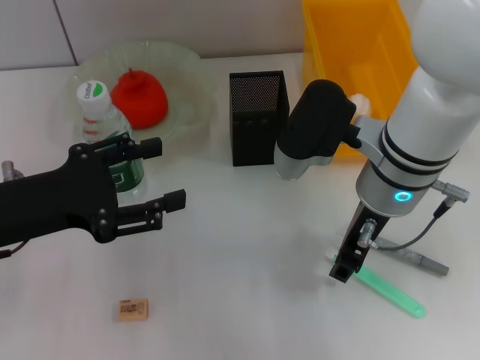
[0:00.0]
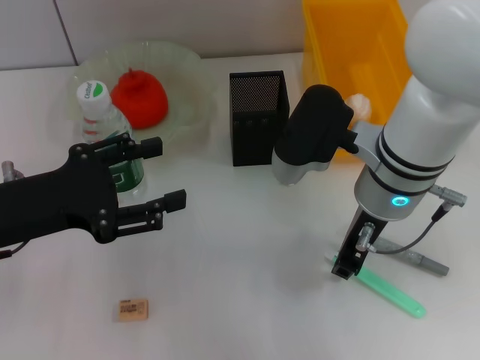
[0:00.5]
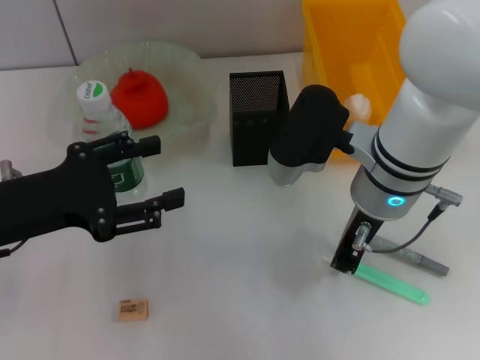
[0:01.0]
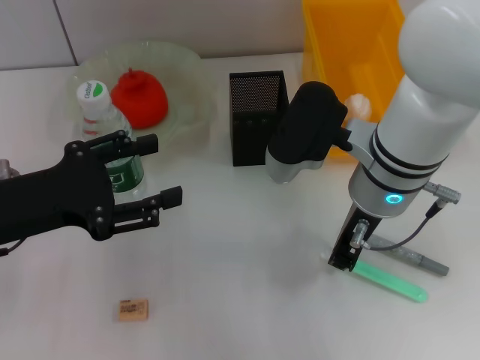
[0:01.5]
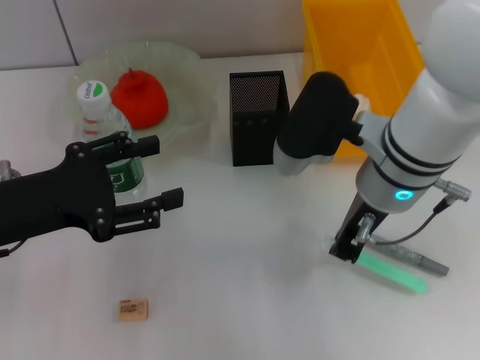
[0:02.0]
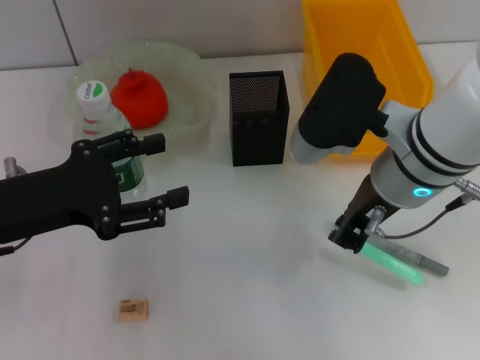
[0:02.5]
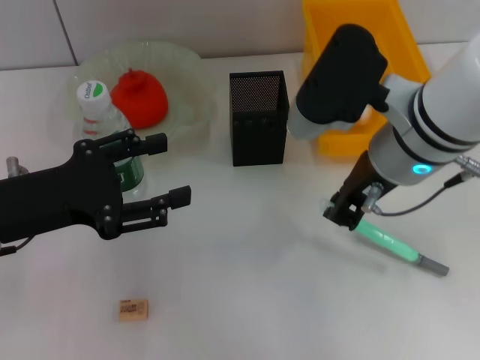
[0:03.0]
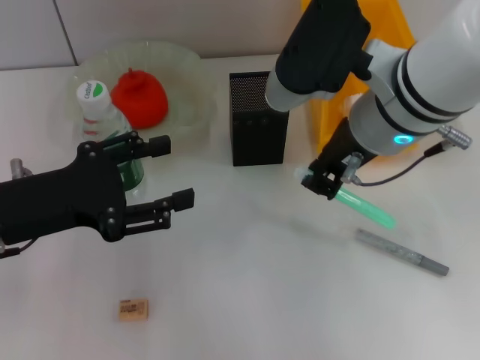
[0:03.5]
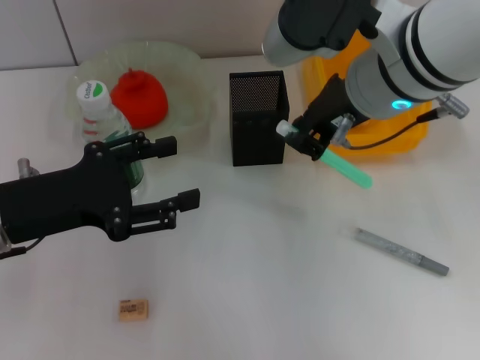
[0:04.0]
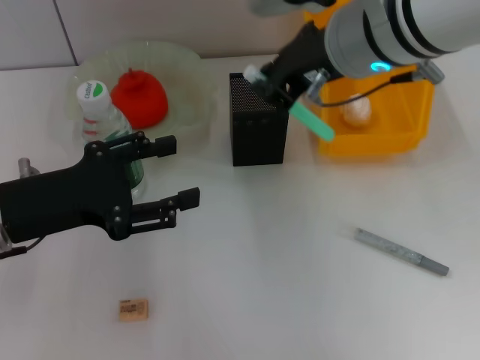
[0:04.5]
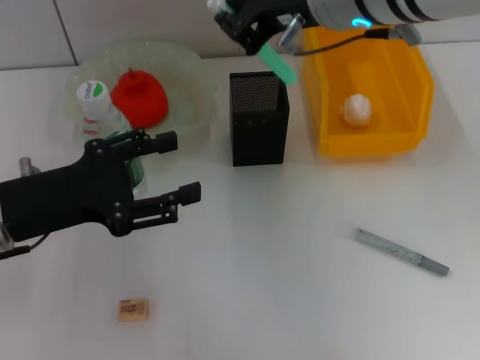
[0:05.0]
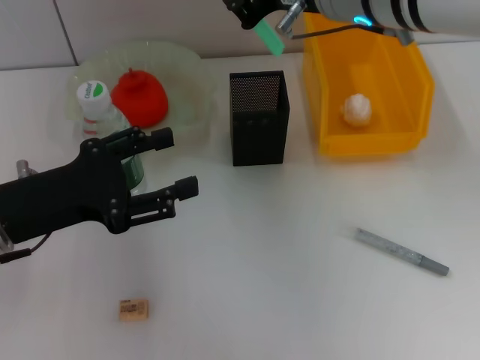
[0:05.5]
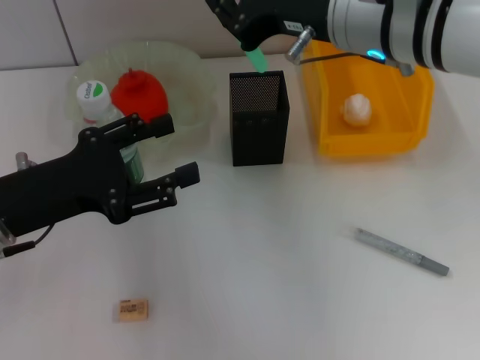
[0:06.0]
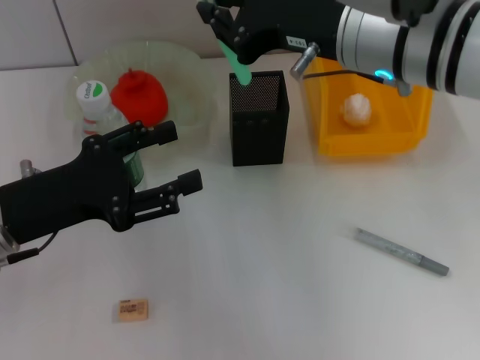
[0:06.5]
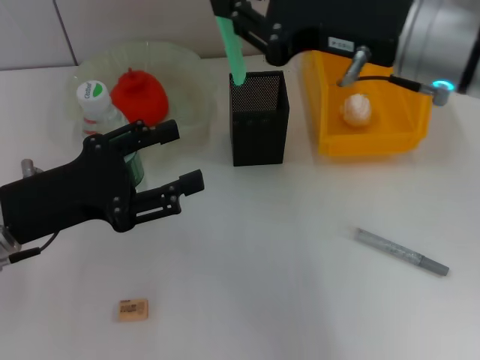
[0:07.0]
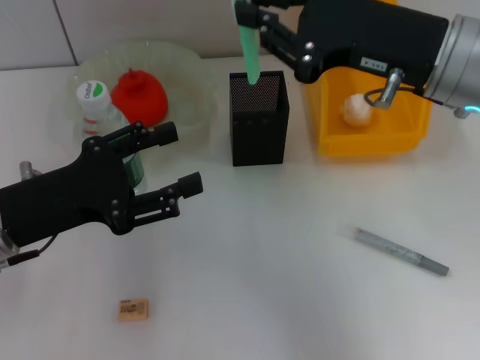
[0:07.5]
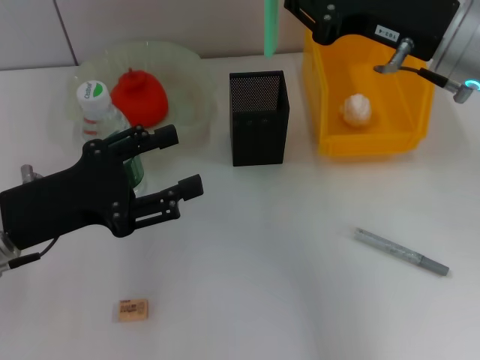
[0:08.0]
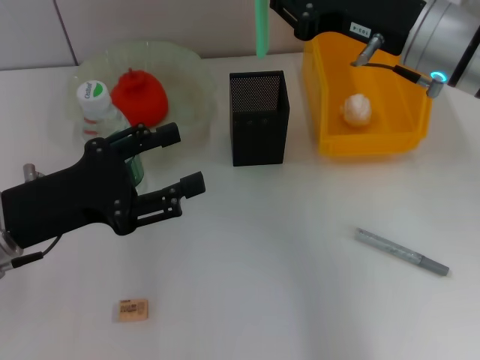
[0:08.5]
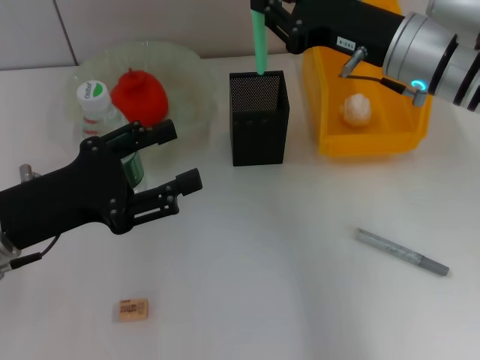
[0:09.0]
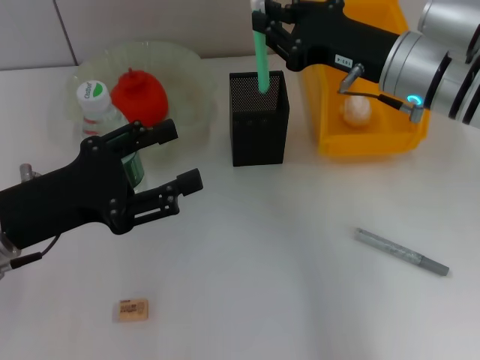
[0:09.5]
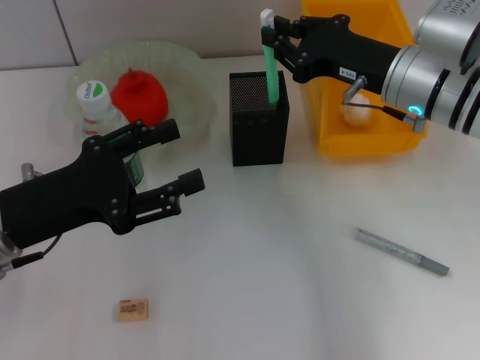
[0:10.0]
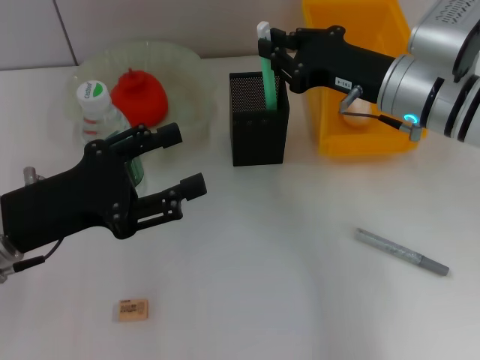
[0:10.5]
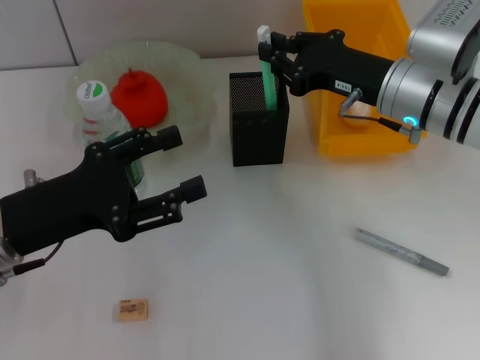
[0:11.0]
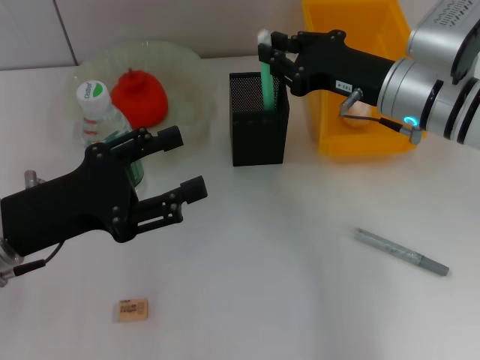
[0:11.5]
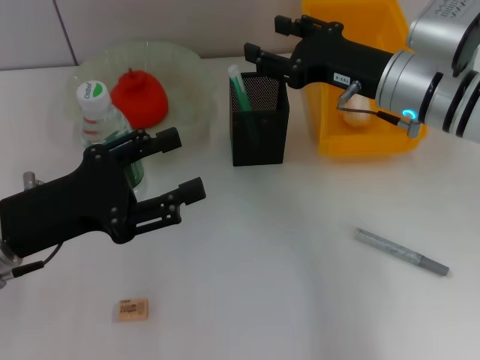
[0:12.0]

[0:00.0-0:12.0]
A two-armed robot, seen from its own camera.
Step, 0:01.5 to 0:11.5: Place the blue utility knife into the pen holder with the right hand.
0:00.0 to 0:02.0: The right gripper closes.
0:02.0 to 0:04.0: The right gripper is displaced upward by roughly 10 cm.
0:06.0 to 0:08.0: The right gripper heads to the right, covering approximately 10 cm.
0:08.0 to 0:10.0: The right gripper shifts roughly 5 cm downward.
0:10.0 to 0:12.0: The right gripper opens up.

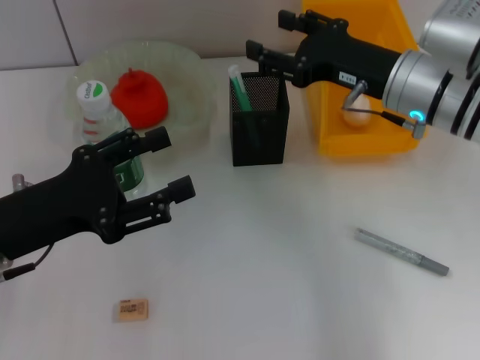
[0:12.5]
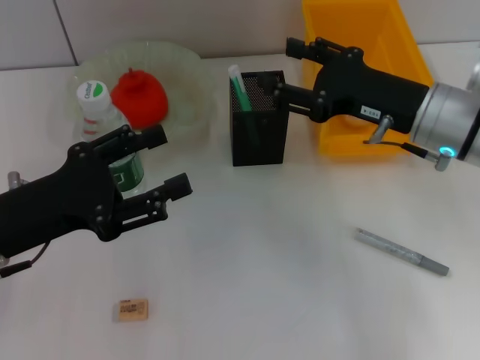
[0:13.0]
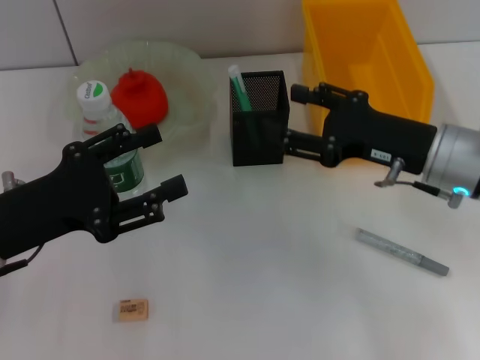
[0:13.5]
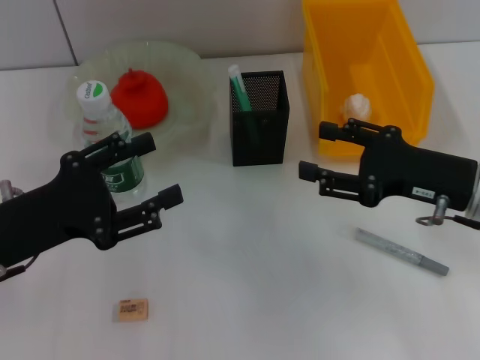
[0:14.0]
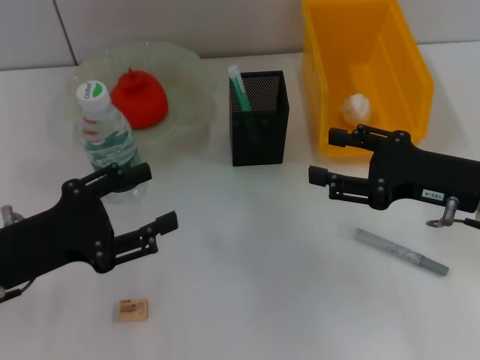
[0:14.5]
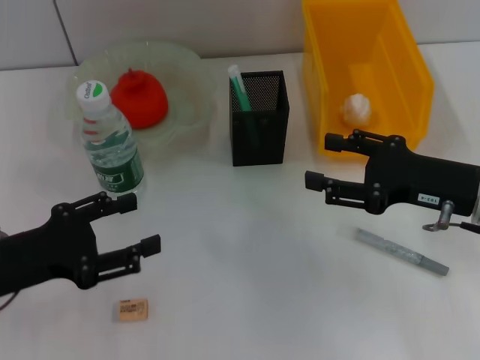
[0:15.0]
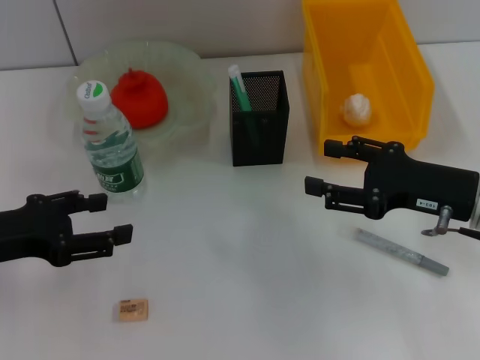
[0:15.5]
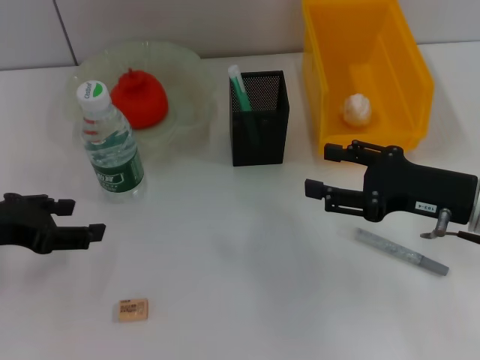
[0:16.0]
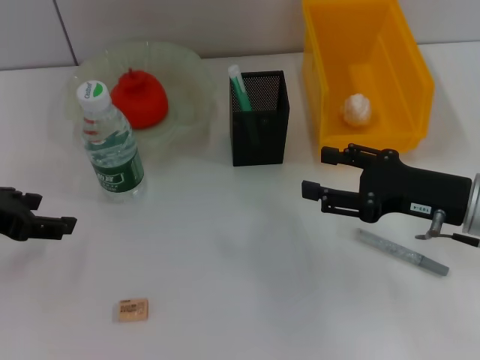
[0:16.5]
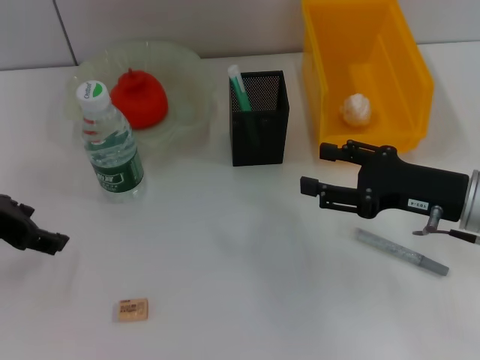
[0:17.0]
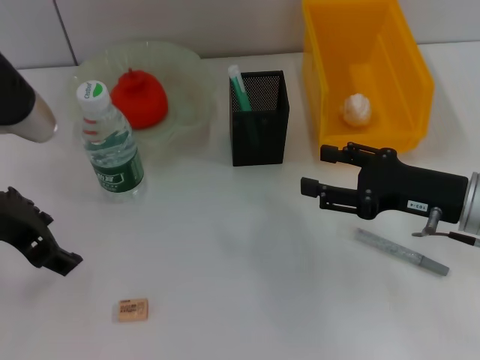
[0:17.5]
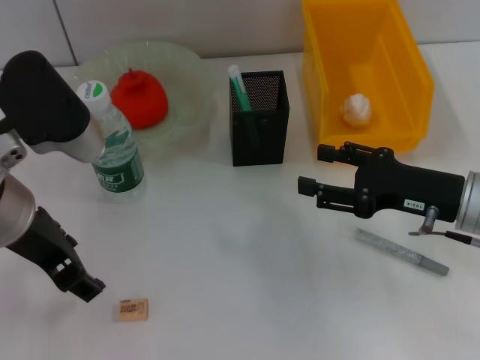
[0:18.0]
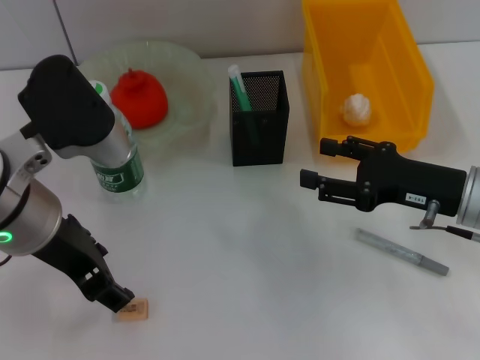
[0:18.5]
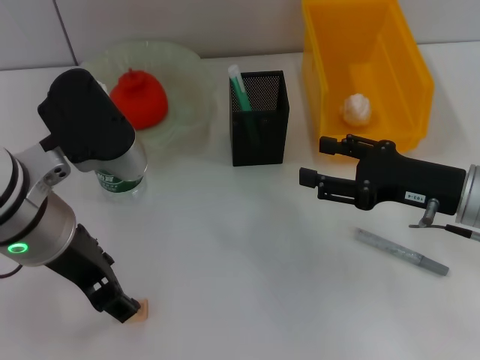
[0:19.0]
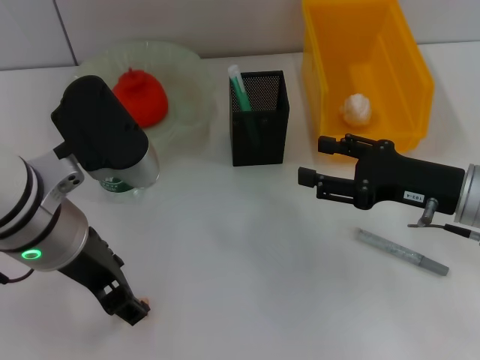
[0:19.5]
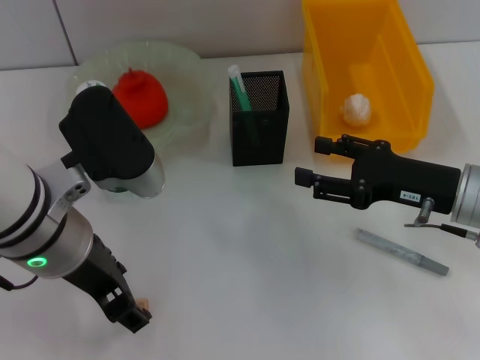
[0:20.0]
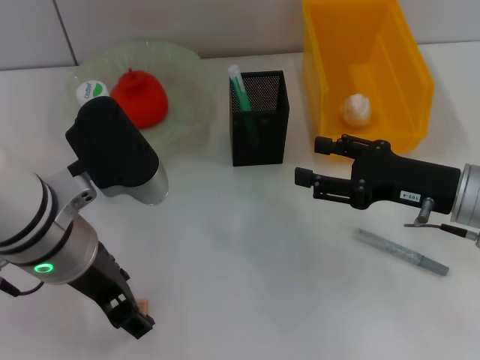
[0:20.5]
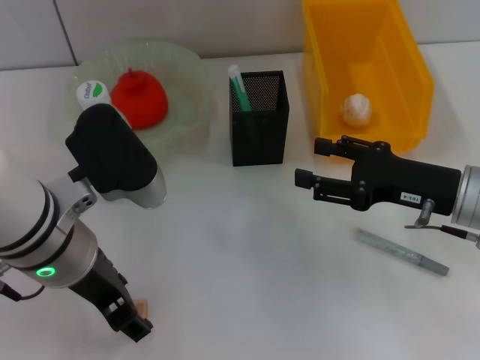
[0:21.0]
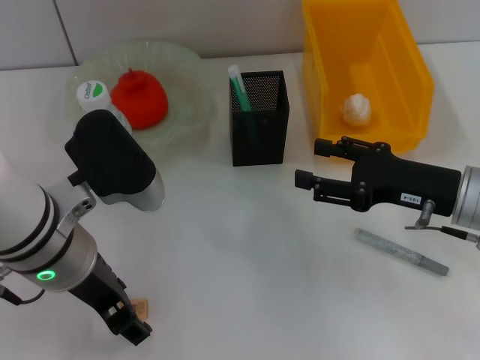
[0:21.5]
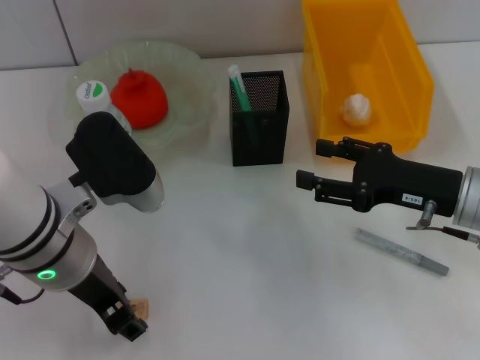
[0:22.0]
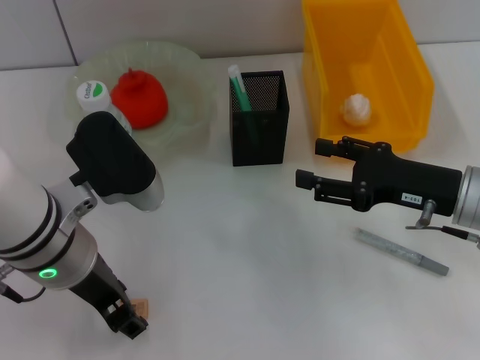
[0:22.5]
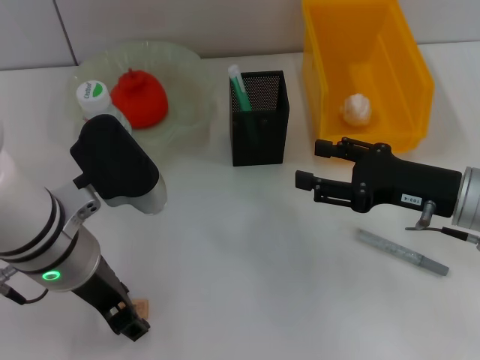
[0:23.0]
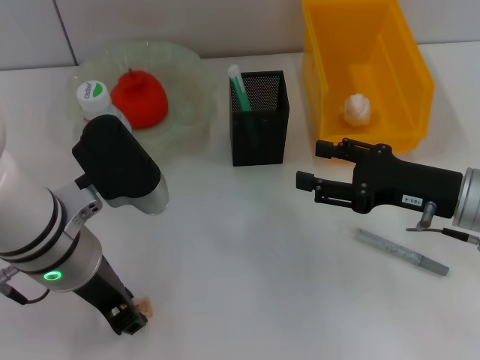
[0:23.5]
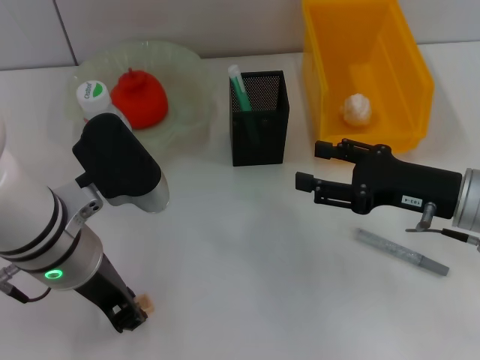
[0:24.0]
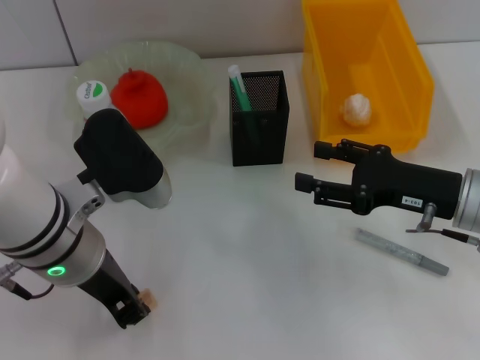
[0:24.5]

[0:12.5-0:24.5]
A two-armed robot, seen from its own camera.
Step, 0:12.5 to 0:24.0: Grab the eraser with the left hand.
0:12.5 to 0:14.5: The right gripper moves backward and to the right, roughly 10 cm.
0:14.5 to 0:16.5: The left gripper heads upward and forward, covering approximately 10 cm.
0:16.5 to 0:18.5: The left gripper goes approximately 15 cm to the right.
0:18.5 to 0:22.5: The grippers stay close to where they were, moving slightly.
0:22.5 to 0:24.5: The left gripper closes its fingers.

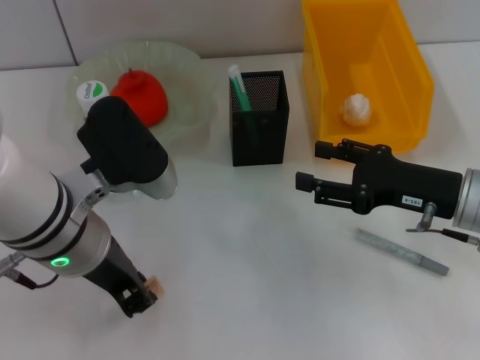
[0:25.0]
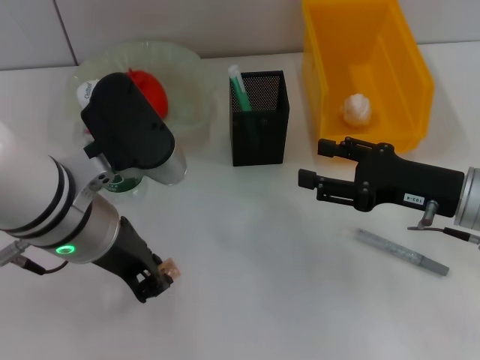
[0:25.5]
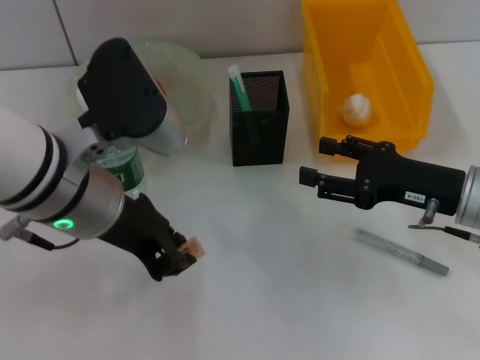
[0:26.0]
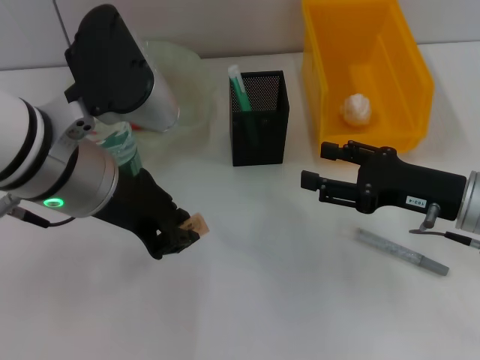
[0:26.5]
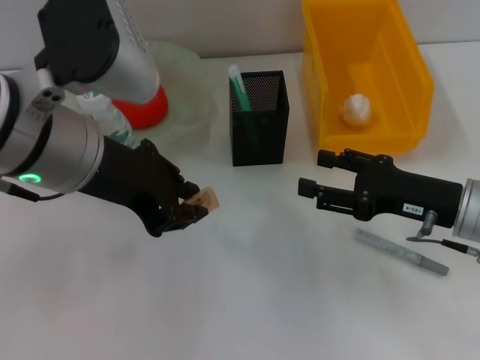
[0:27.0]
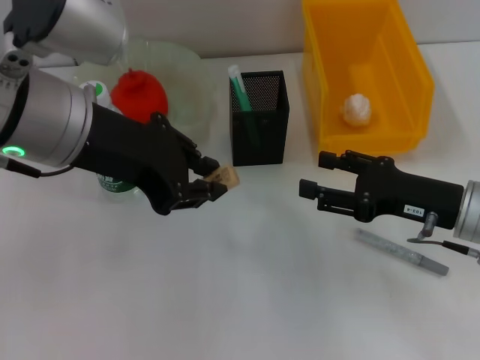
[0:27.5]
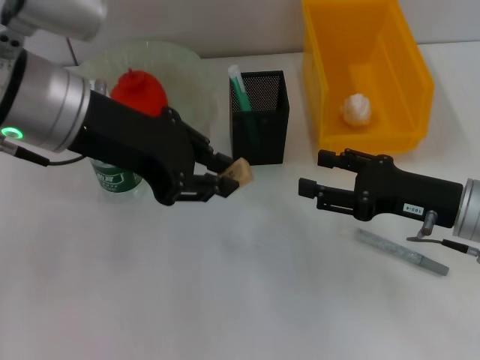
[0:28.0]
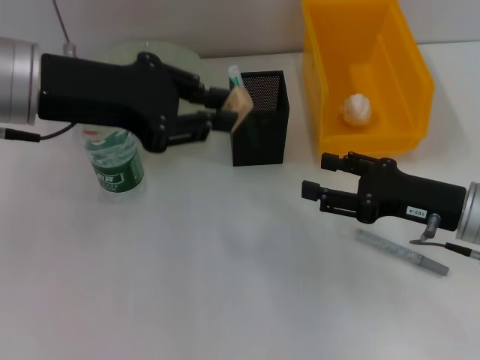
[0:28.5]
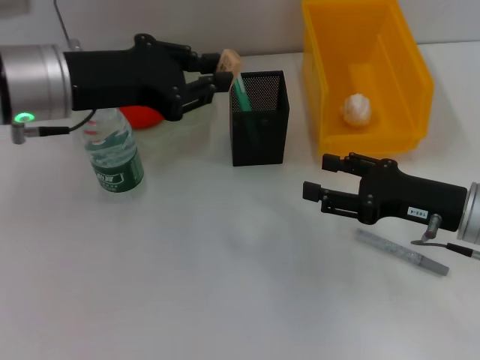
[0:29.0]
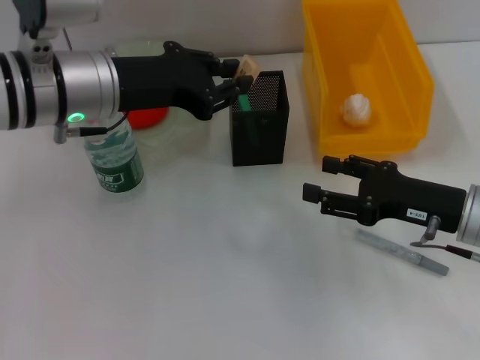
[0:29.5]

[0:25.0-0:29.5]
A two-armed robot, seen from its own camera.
0:25.0 to 0:27.0: The left gripper heads upward, covering roughly 10 cm.
0:27.0 to 0:29.5: The left gripper heads forward, covering approximately 5 cm.
